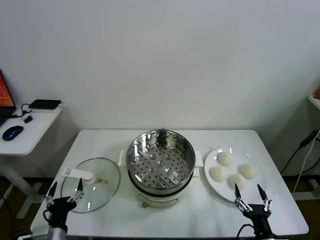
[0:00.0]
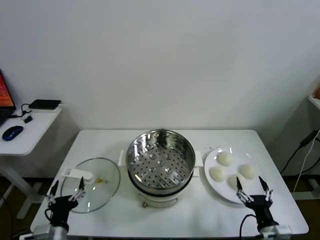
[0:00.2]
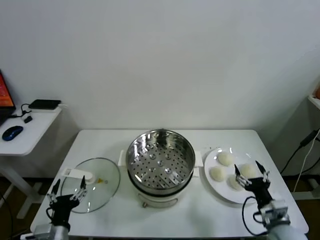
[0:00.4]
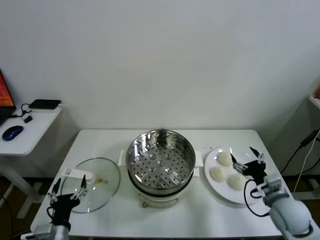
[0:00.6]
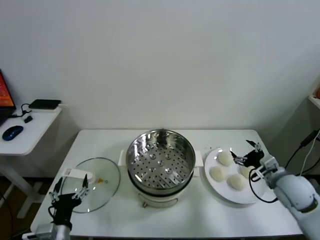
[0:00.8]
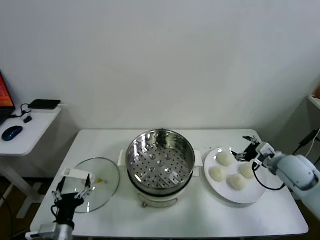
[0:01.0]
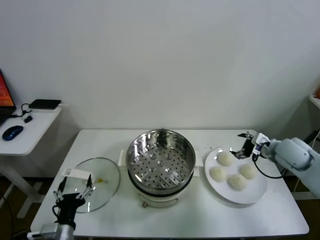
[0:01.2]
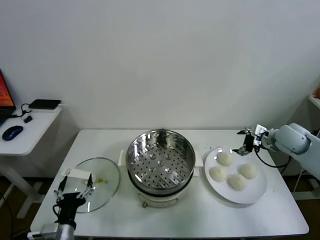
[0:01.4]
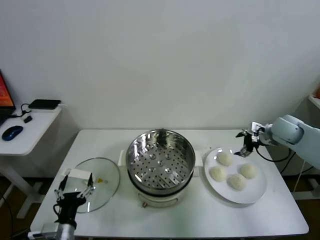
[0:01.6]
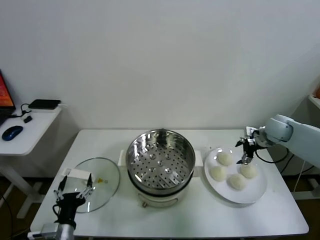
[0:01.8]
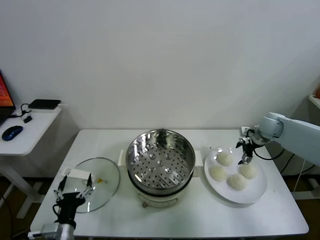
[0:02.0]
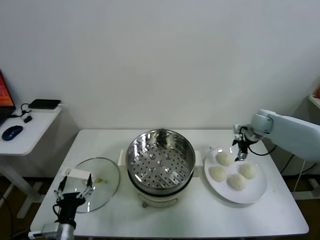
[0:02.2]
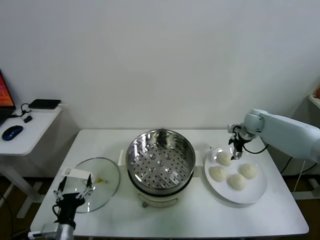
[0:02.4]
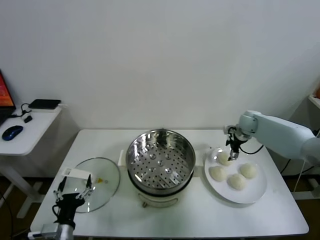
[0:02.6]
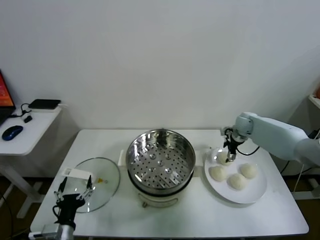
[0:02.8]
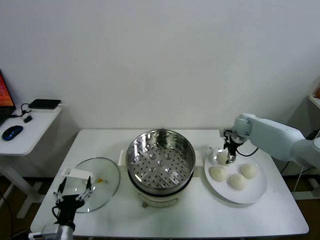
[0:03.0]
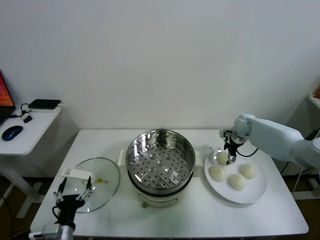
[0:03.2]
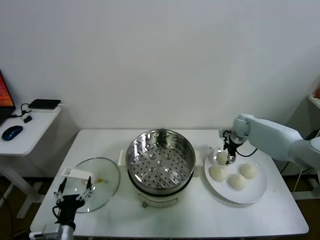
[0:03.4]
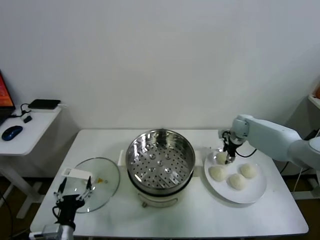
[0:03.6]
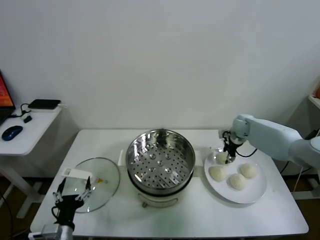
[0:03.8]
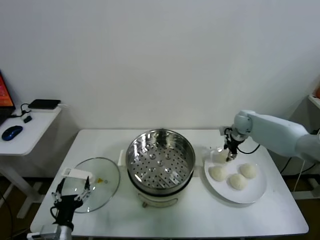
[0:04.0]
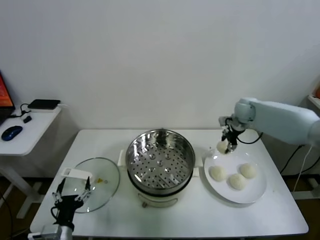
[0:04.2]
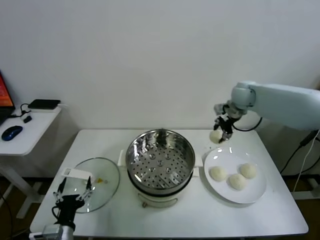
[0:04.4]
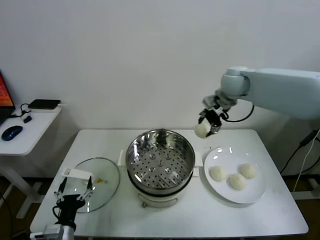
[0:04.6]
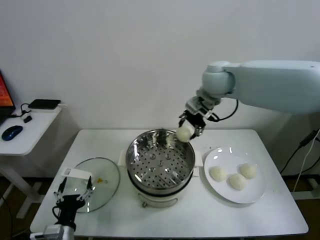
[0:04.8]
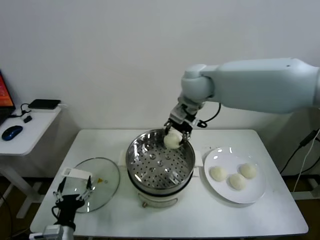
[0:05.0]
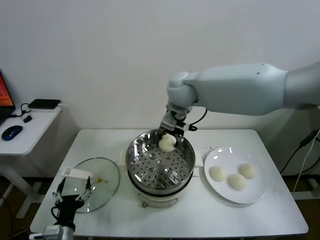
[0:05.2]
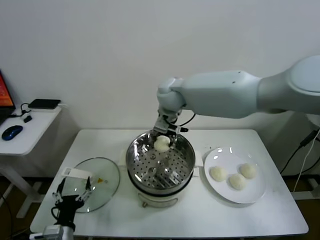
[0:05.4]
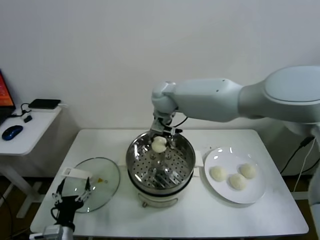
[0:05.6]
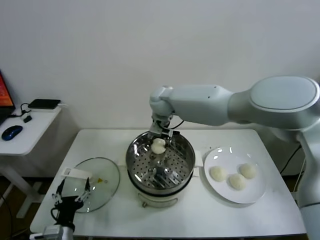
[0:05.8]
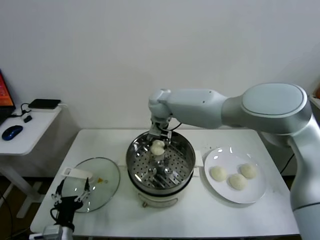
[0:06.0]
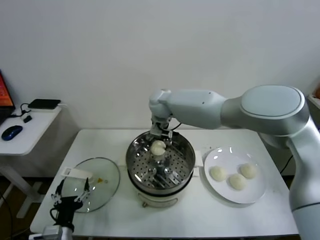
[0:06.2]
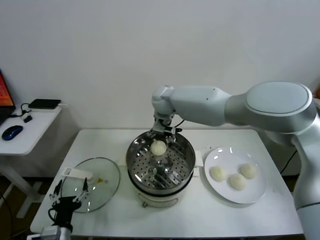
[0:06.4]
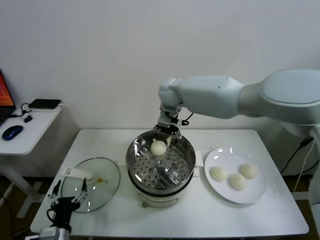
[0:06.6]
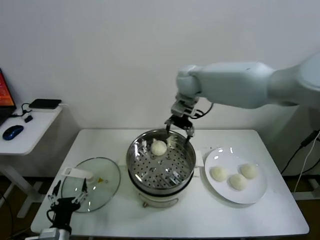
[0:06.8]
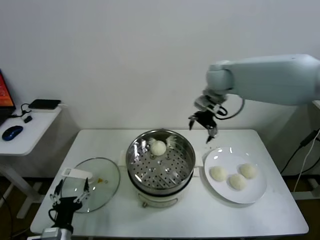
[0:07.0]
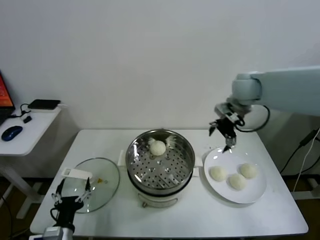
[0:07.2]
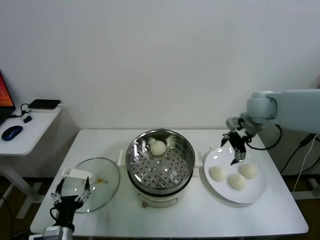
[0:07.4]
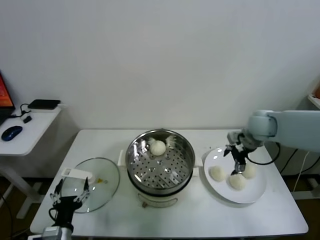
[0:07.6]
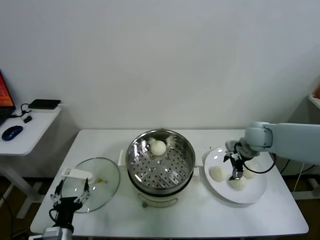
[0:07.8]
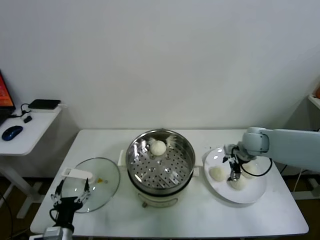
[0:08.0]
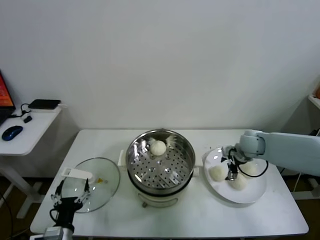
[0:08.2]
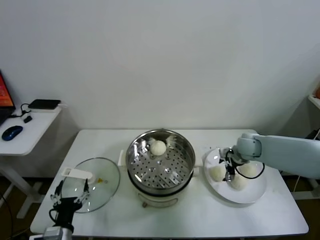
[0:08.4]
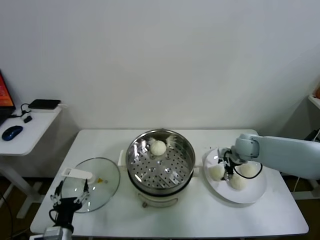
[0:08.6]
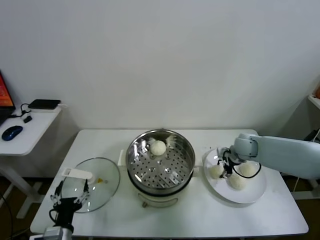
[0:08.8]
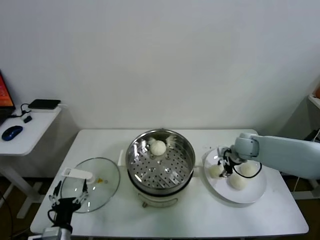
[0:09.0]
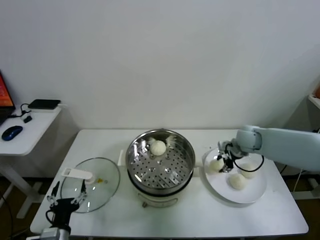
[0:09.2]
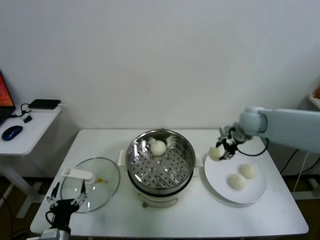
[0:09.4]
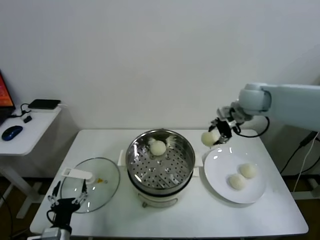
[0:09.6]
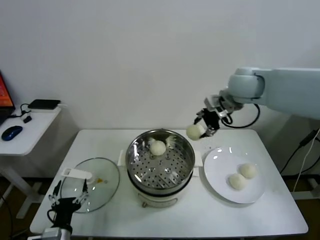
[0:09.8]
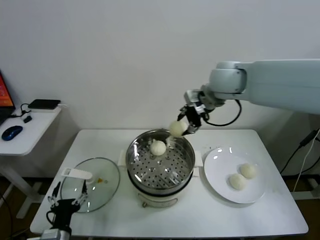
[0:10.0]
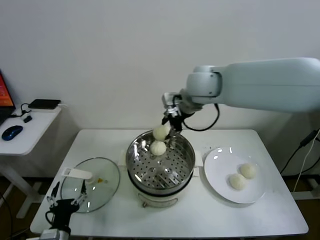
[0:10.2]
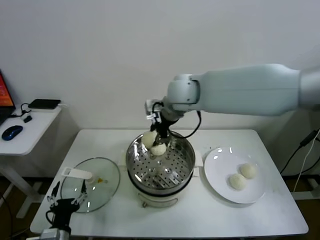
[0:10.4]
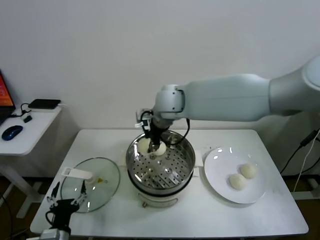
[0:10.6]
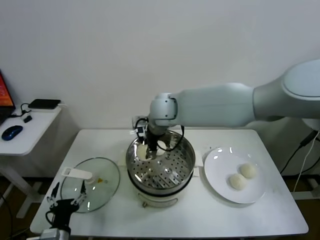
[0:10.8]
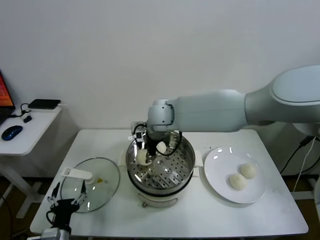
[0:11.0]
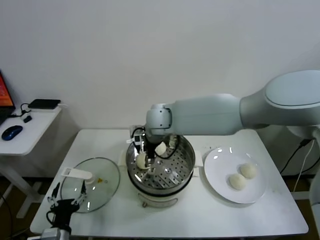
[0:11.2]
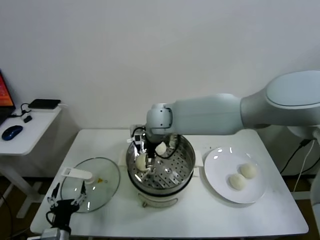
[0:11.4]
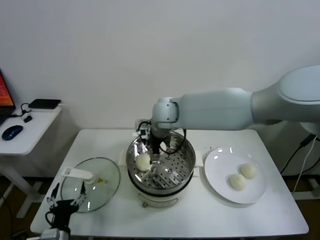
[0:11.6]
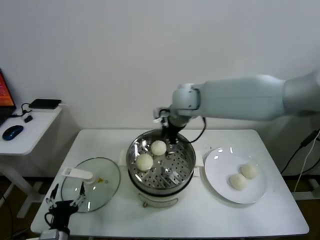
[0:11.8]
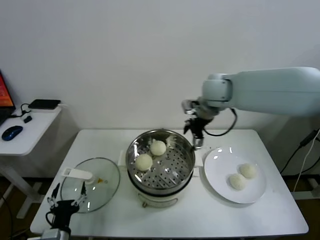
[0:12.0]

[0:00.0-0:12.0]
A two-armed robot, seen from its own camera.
Task of the whole recording: take steamed baozi put them in steamer.
Step, 0:00.0 to 0:03.8: Grasp the baozi in the plate with right gripper.
Step, 0:04.0 to 0:06.4: Place the baozi on the steamer with right gripper.
Step, 0:06.6 to 0:09.0: Grasp the baozi in the plate with right gripper.
Step, 0:09.2 to 0:11.4: Place the baozi on the steamer with right gripper.
0:01.6 to 0:03.0: The right gripper travels forward, downward and to the left by roughly 15 cm.
0:03.0 to 0:04.4: The right gripper heads upward and to the left, covering roughly 20 cm, and closes up.
0:04.4 to 0:06.0: The right gripper shifts roughly 25 cm to the left.
0:06.0 to 0:07.6: The right gripper goes roughly 35 cm to the right, and opens up.
0:07.6 to 0:09.0: The right gripper travels downward by some 10 cm, and closes its fingers.
0:09.0 to 0:10.4: The right gripper moves to the left and upward, some 35 cm.
0:10.4 to 0:12.0: The right gripper is displaced to the right by roughly 15 cm, and opens its fingers.

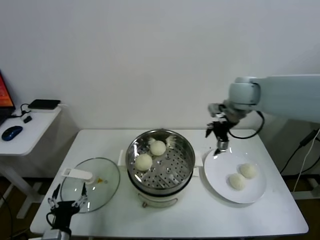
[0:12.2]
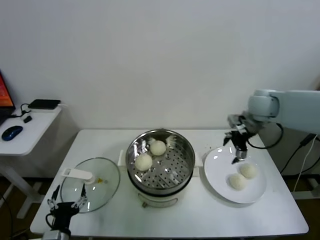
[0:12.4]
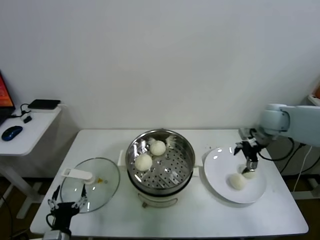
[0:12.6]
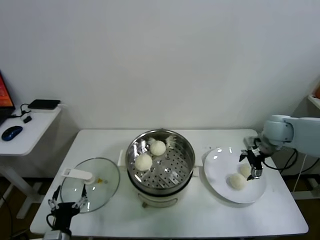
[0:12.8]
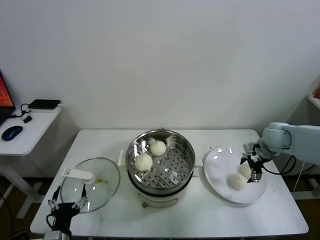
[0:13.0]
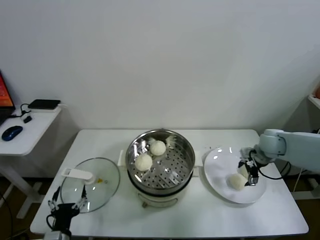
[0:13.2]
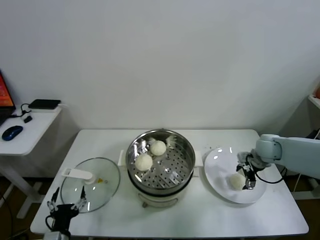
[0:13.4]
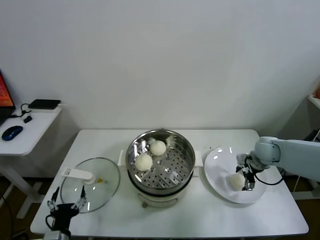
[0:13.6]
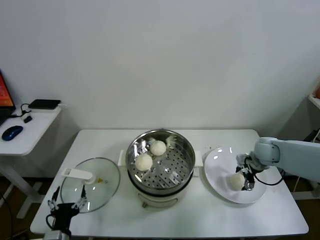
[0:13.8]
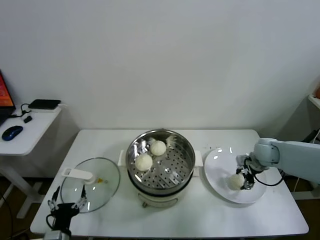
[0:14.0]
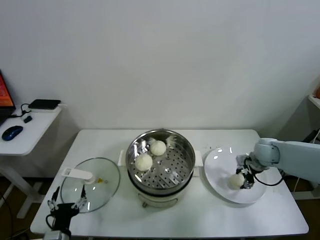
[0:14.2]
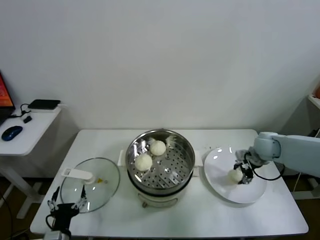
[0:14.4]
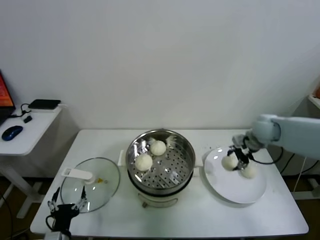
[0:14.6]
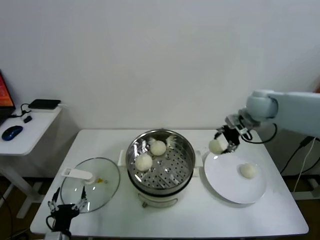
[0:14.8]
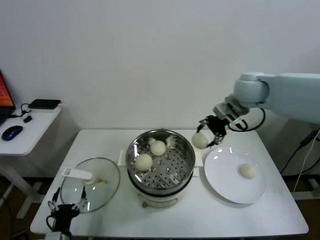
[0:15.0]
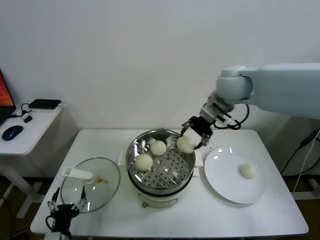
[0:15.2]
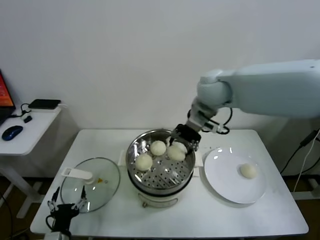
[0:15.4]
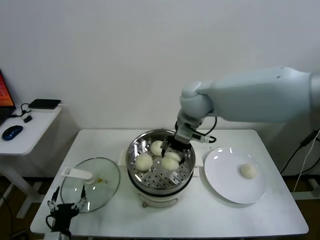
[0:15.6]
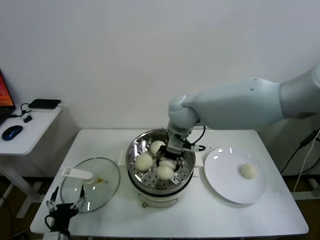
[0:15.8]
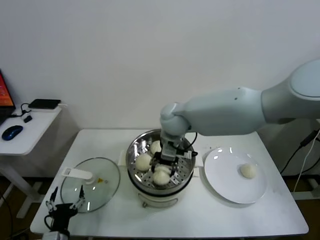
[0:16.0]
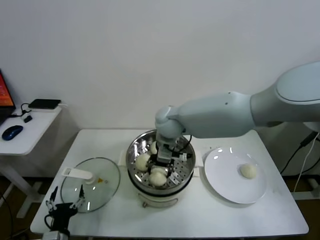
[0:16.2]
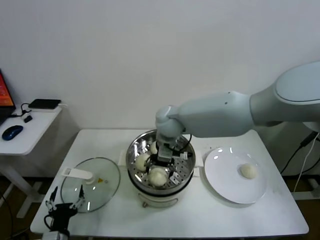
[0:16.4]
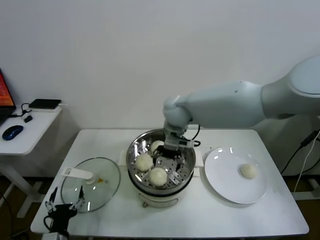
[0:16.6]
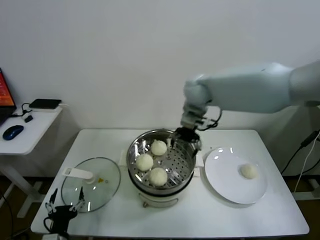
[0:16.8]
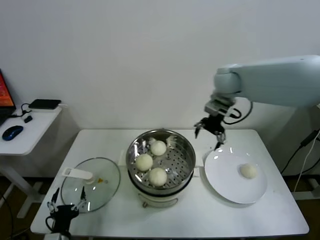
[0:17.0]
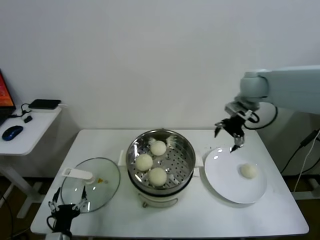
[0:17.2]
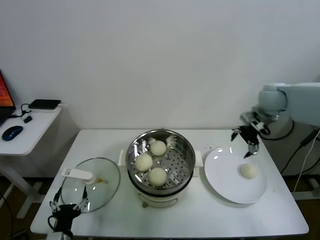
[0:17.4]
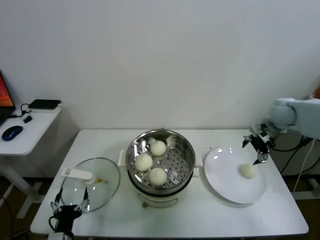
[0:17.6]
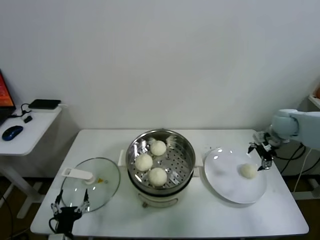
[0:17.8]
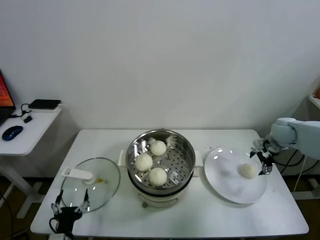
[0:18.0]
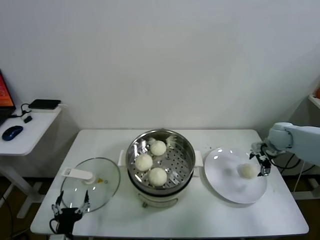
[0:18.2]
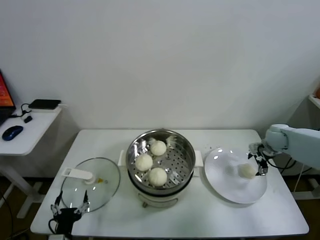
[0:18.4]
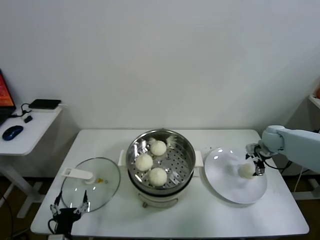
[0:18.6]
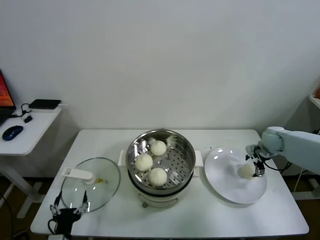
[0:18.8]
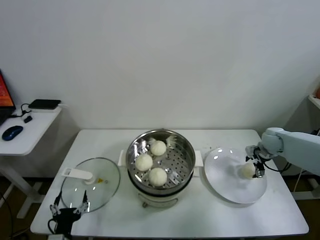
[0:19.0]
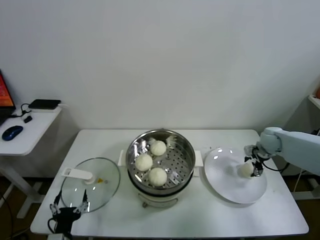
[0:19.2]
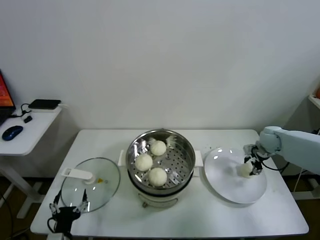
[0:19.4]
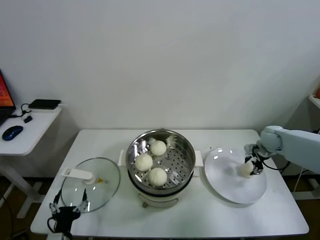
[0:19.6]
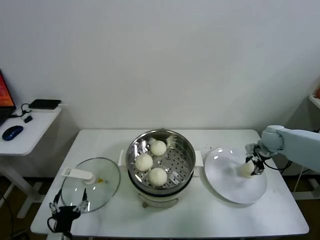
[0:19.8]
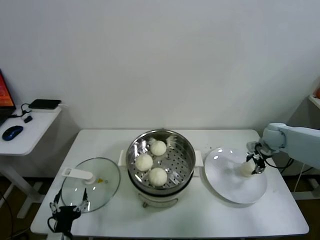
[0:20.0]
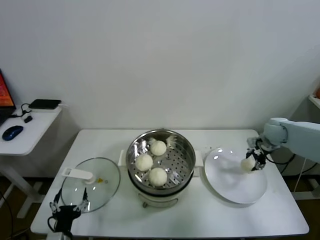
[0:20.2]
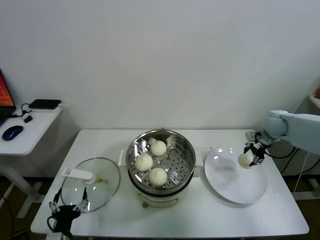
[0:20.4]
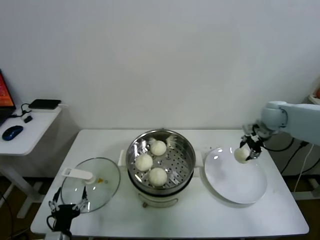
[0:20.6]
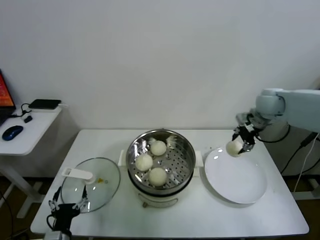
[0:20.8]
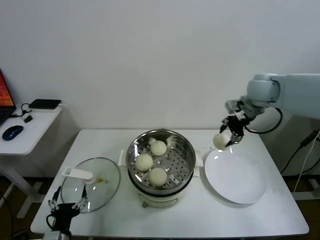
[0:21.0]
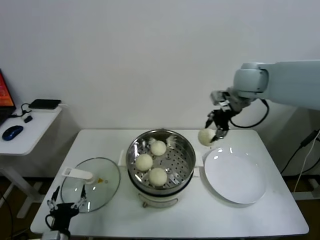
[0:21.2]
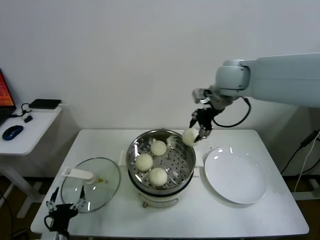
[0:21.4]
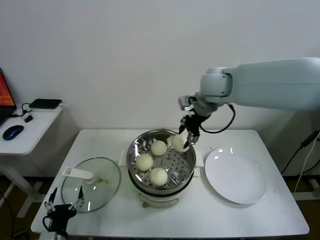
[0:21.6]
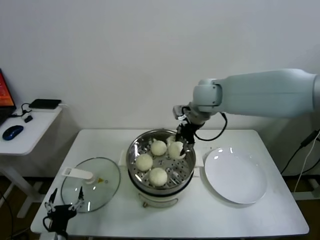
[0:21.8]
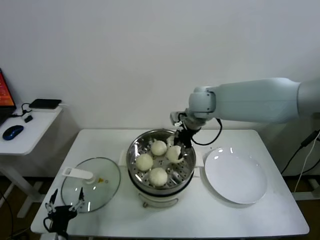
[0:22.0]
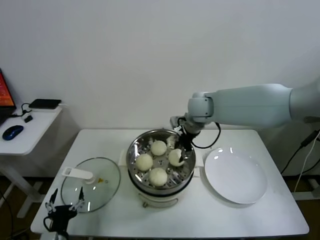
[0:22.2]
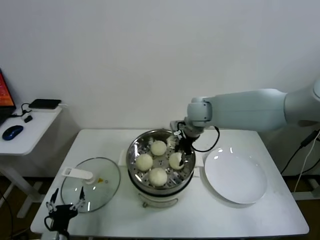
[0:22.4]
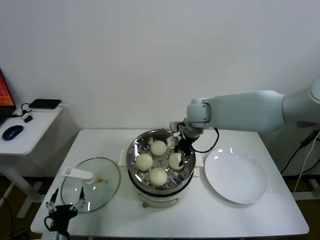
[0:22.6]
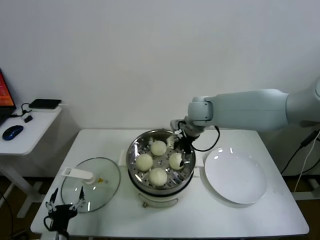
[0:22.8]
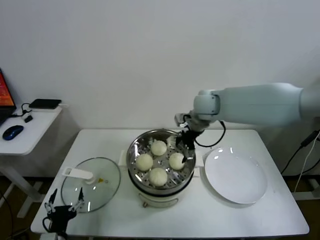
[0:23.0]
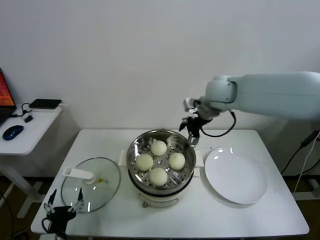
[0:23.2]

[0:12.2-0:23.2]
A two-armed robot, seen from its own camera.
Task of the whole recording: take steamed baozi put them in steamer.
Step, 0:12.2 to 0:14.0: Grasp the baozi in the plate with right gripper.
Step, 0:14.4 to 0:16.6: Place the baozi on the steamer with right gripper.
Step, 0:16.8 to 0:19.4: Grasp the baozi in the plate with right gripper.
Step, 0:19.8 to 0:22.6: Place the baozi on the steamer with right gripper.
0:12.2 to 0:13.8: The right gripper heads downward and to the right, covering about 25 cm.
0:13.8 to 0:15.4: The right gripper is displaced upward and to the left by approximately 35 cm, and closes.
0:15.4 to 0:17.0: The right gripper is displaced to the right and forward by roughly 10 cm, and opens.
0:17.0 to 0:18.4: The right gripper heads to the right and downward, covering about 35 cm.
0:18.4 to 0:20.0: The right gripper closes.
0:20.0 to 0:21.6: The right gripper is displaced to the left and upward by about 35 cm.
0:21.6 to 0:23.2: The right gripper opens.
